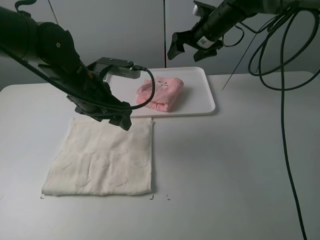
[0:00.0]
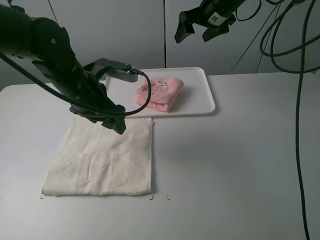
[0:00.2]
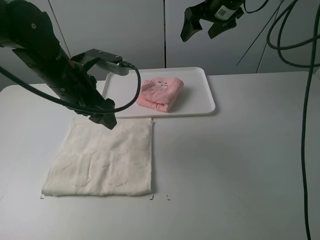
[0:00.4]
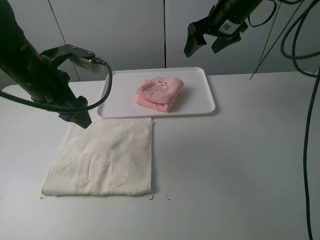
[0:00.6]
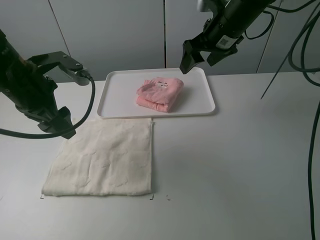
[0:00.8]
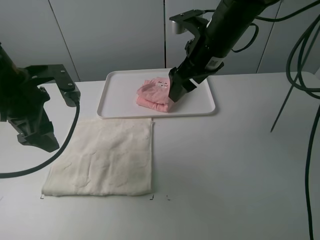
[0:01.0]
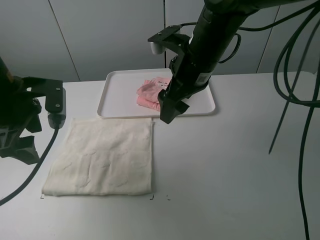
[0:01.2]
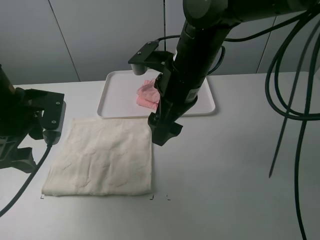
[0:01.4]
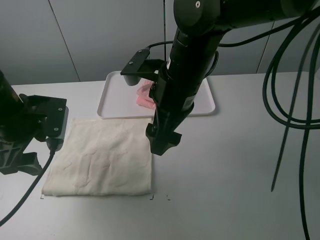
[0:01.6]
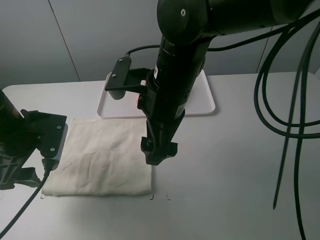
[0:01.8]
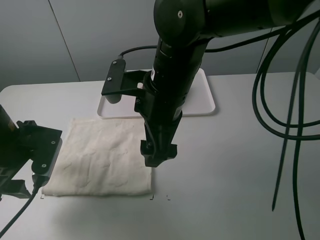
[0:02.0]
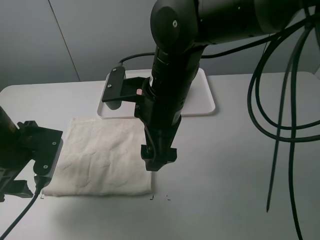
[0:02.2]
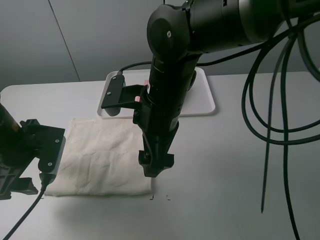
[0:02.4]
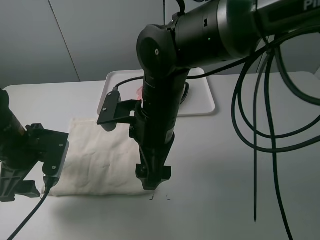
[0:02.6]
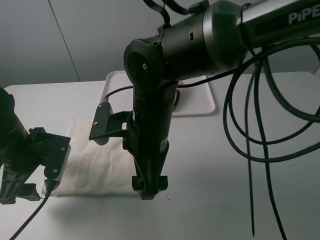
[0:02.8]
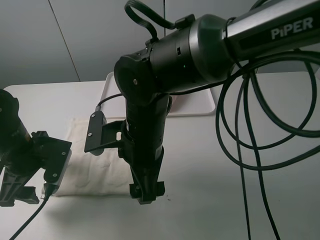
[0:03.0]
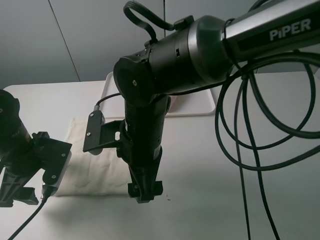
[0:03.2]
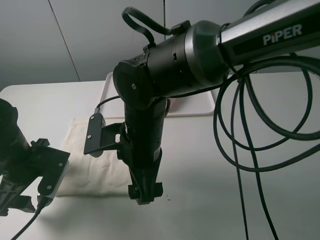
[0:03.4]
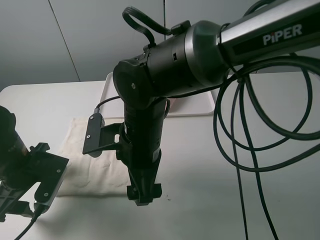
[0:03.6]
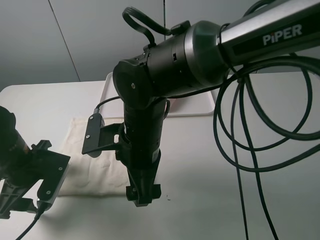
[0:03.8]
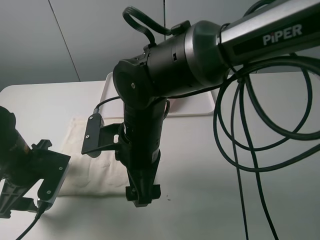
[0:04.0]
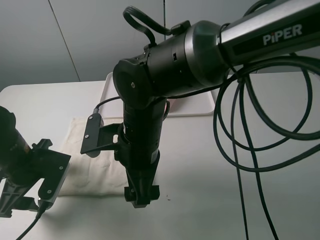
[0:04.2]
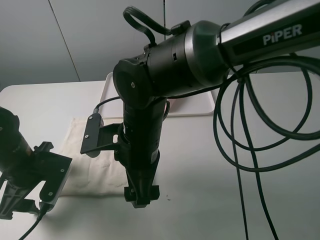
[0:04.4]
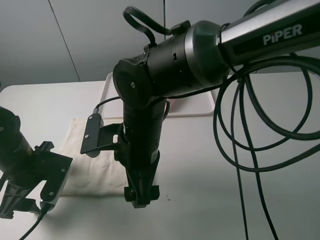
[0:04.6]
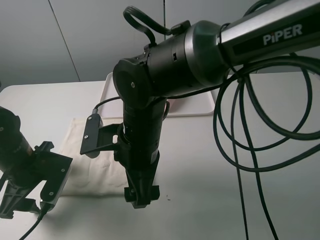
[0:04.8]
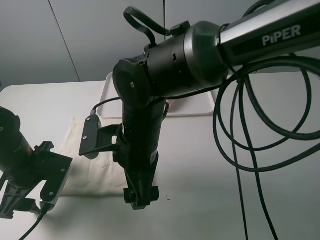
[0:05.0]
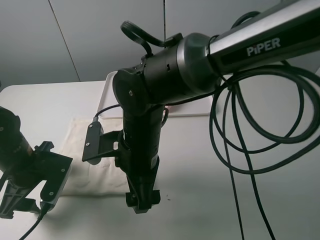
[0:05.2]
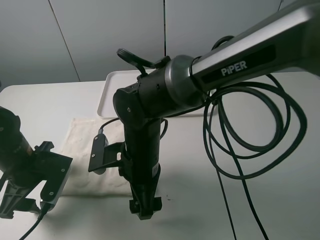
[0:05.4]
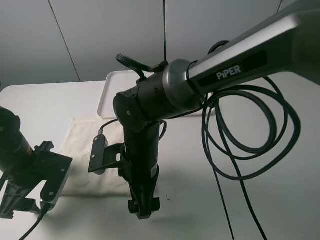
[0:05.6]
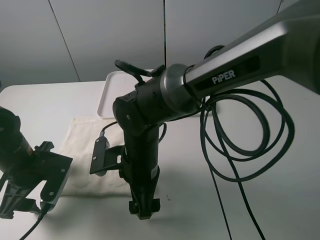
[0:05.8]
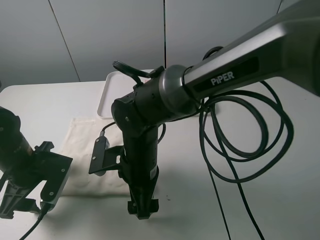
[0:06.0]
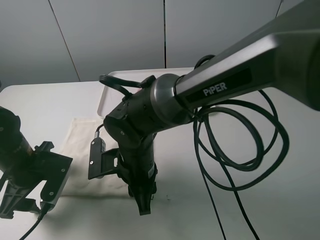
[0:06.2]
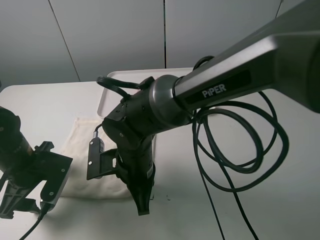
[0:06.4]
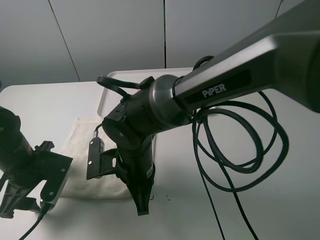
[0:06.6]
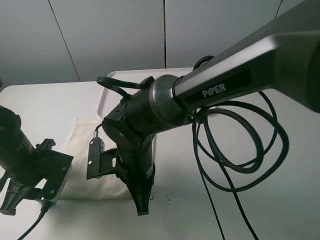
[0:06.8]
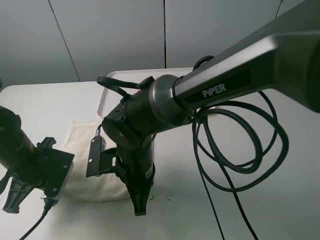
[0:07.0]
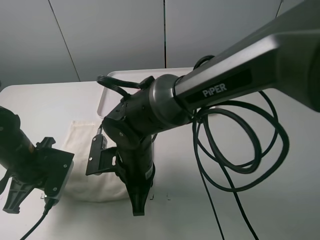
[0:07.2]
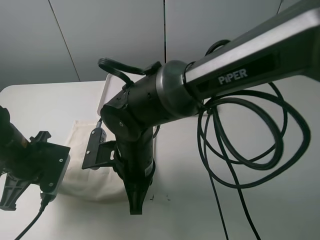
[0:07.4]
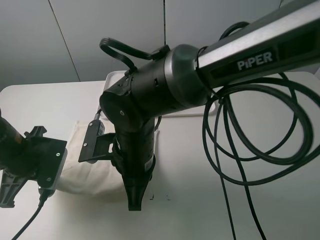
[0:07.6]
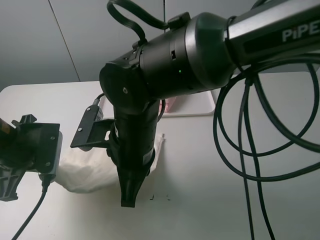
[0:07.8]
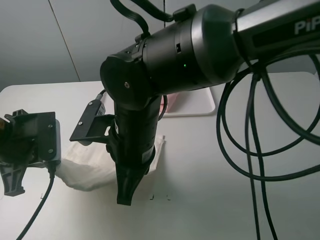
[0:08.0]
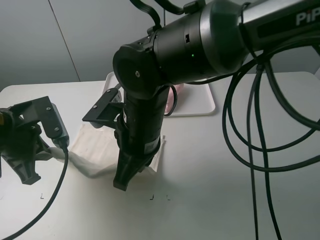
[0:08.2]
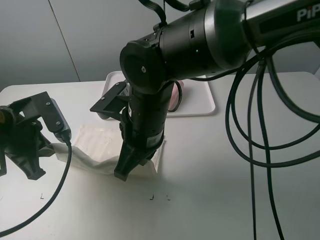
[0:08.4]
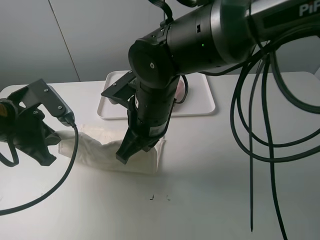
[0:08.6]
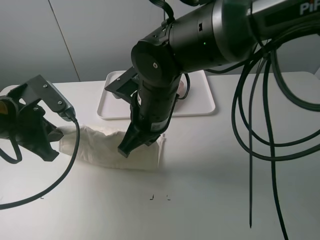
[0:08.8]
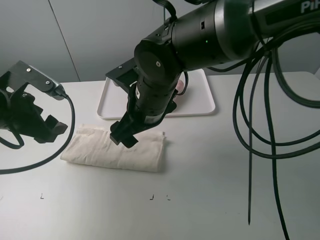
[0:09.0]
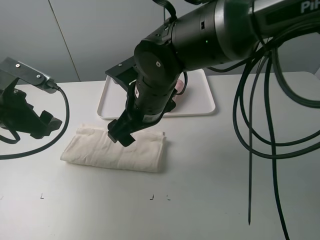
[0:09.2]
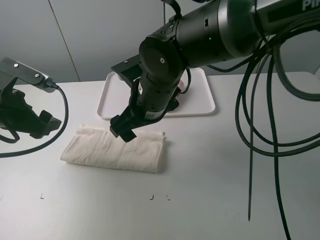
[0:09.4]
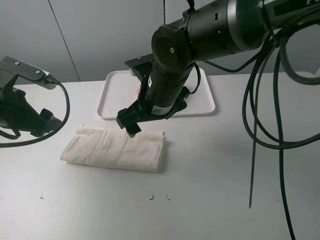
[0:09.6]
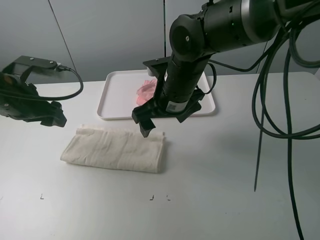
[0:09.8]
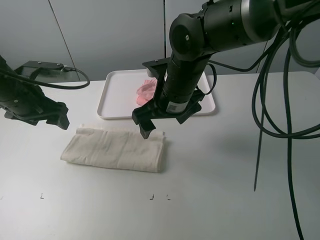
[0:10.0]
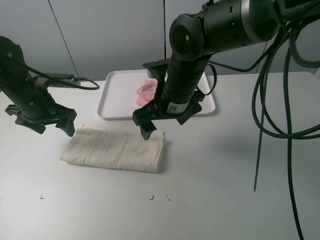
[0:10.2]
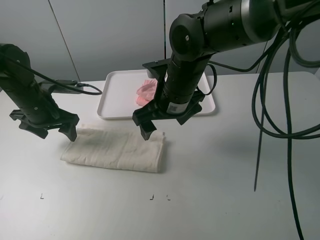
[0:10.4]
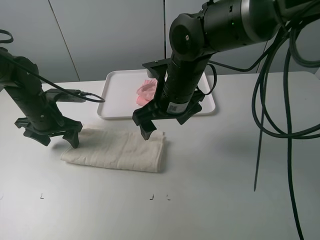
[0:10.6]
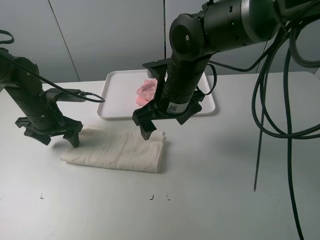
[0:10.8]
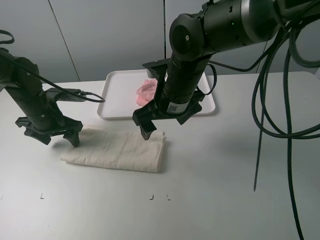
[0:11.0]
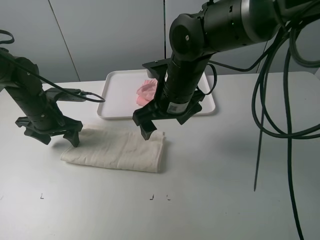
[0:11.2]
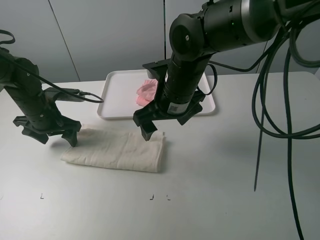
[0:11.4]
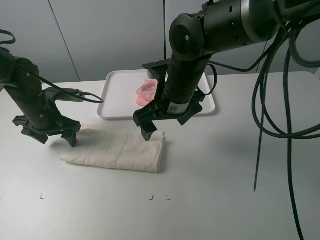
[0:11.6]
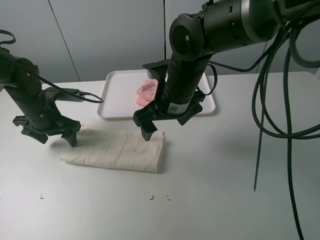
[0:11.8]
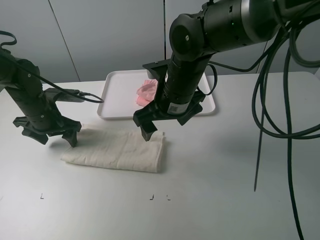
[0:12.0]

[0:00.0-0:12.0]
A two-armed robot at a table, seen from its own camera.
Task of the whole recording: fold one of the towels by two grippers and place it on the tray,then fold another towel by two grippers and place it on the folded towel.
Step, 0:00.0 to 0:06.8: Grasp the white towel with the left gripper.
Step, 0:07.0 to 0:09.2: Fold the white towel upwards with the left gripper.
0:00.0 to 0:01.6: The left gripper travels to the left and backward by some 15 cm. The right gripper travels backward and to the left by some 25 cm.
0:01.6 to 0:03.0: The right gripper heads downward and to the left, covering approximately 10 cm; the left gripper heads downward, covering about 5 cm.
0:04.4 to 0:06.0: The right gripper heads downward, covering roughly 5 cm.
0:06.0 to 0:07.6: The left gripper closes. Meanwhile the right gripper goes about 5 cm upward, and closes.
0:07.6 to 0:09.0: The right gripper heads forward, covering about 5 cm, and opens its fingers. Meanwhile the left gripper goes approximately 5 cm upward, and opens.
0:09.0 to 0:10.4: The left gripper goes roughly 10 cm forward and downward. The right gripper changes place by approximately 5 cm.
0:10.4 to 0:12.0: The grippers stay close to where they were, moving slightly.

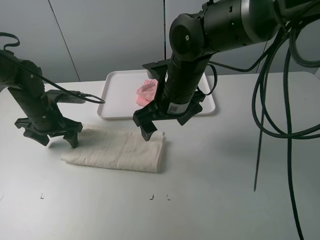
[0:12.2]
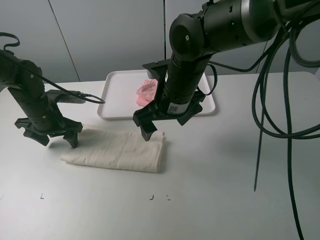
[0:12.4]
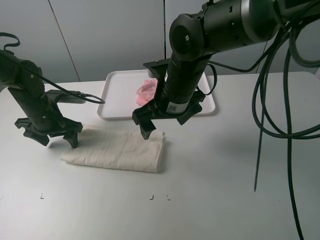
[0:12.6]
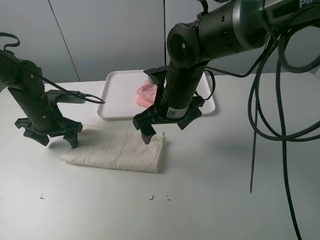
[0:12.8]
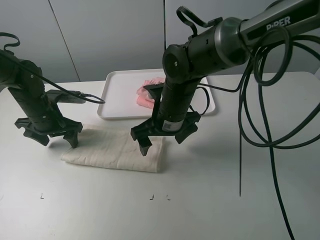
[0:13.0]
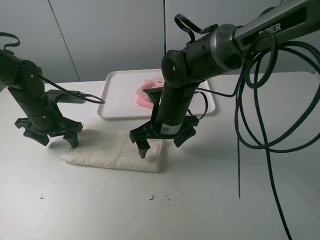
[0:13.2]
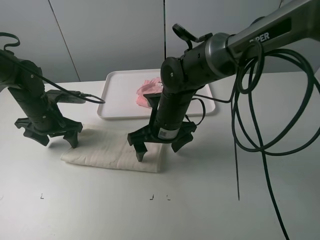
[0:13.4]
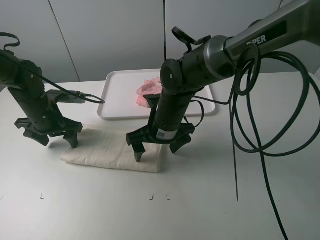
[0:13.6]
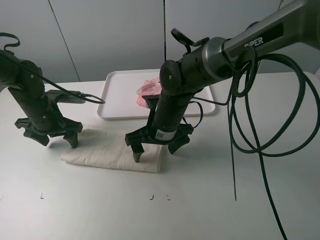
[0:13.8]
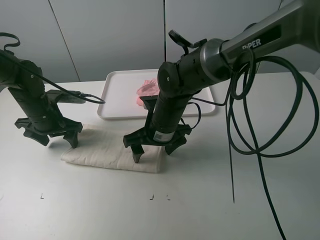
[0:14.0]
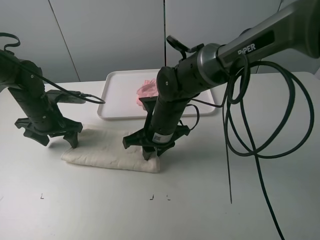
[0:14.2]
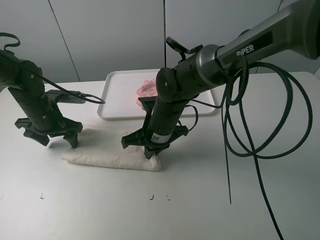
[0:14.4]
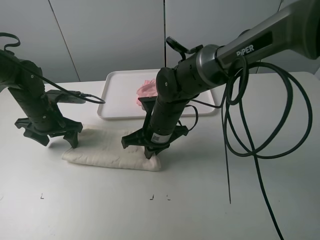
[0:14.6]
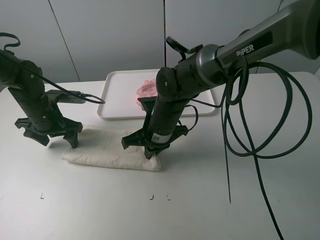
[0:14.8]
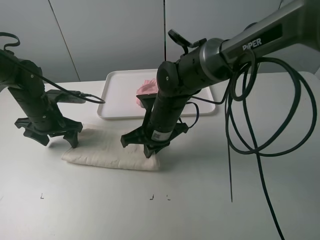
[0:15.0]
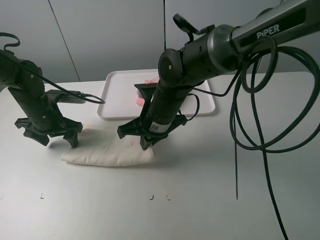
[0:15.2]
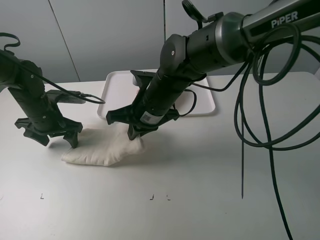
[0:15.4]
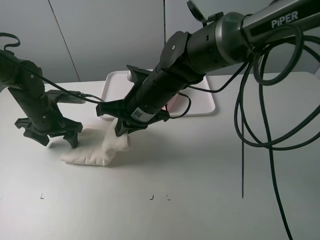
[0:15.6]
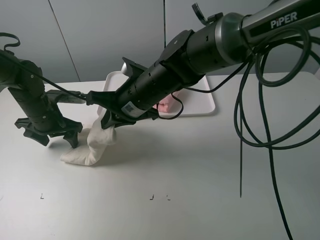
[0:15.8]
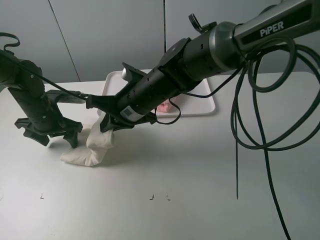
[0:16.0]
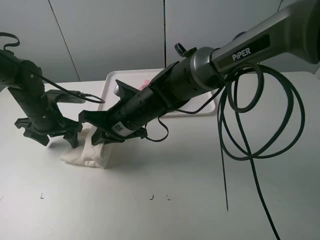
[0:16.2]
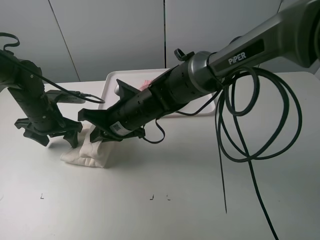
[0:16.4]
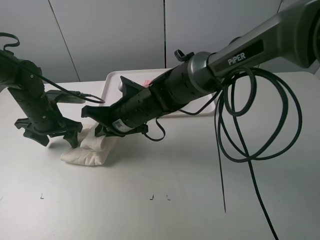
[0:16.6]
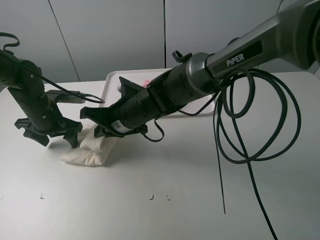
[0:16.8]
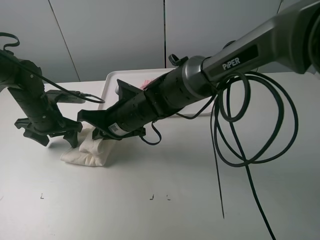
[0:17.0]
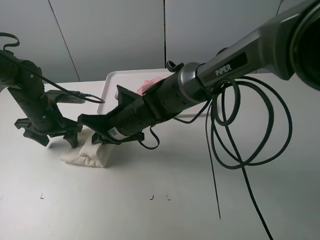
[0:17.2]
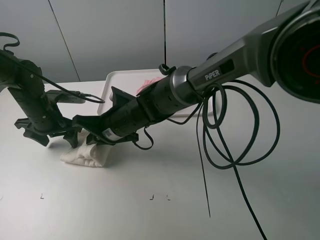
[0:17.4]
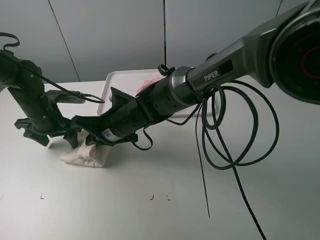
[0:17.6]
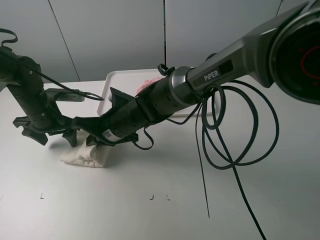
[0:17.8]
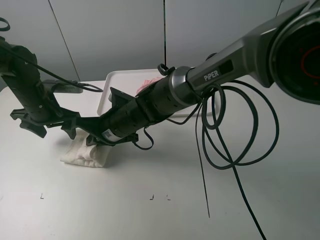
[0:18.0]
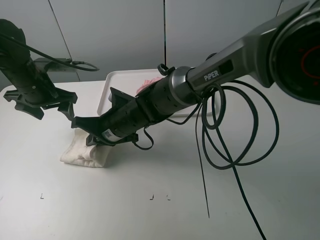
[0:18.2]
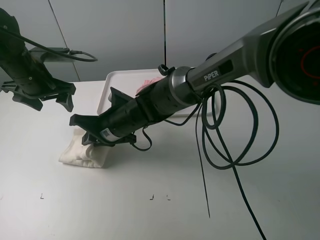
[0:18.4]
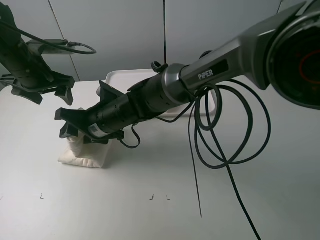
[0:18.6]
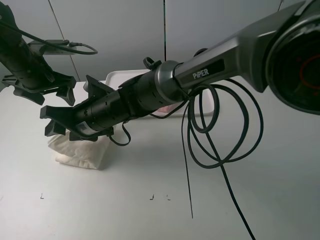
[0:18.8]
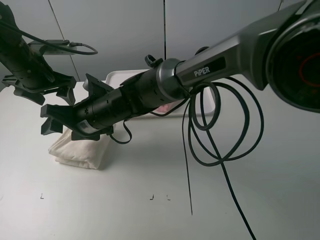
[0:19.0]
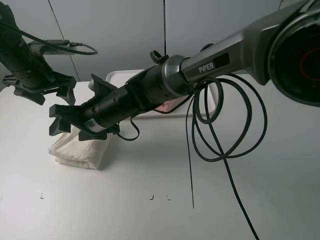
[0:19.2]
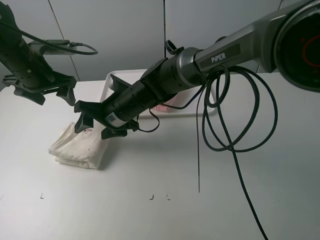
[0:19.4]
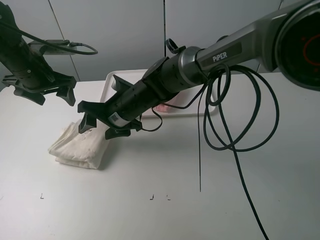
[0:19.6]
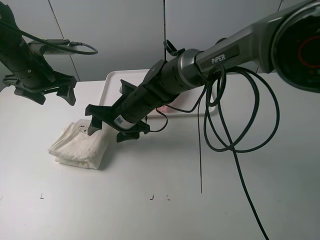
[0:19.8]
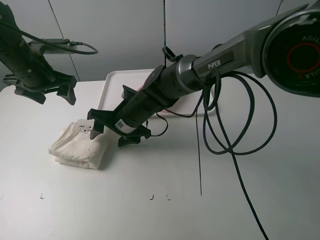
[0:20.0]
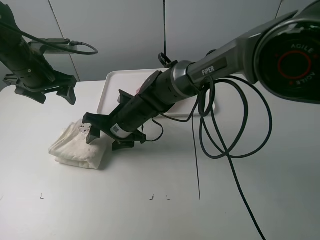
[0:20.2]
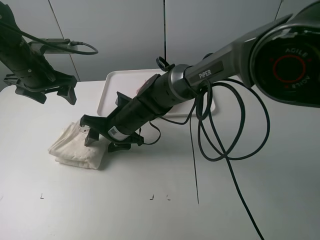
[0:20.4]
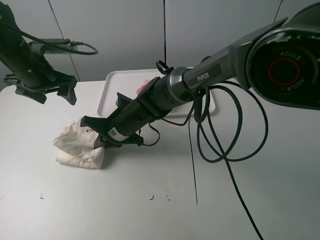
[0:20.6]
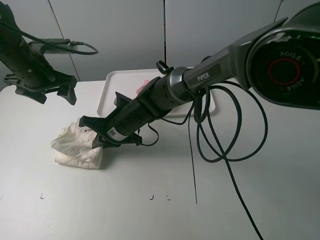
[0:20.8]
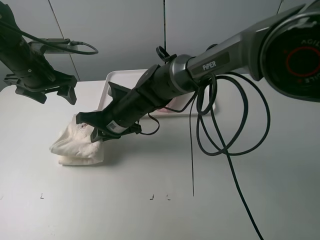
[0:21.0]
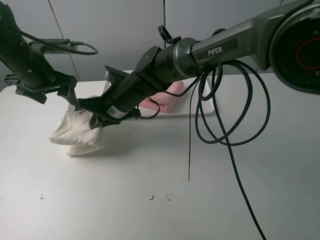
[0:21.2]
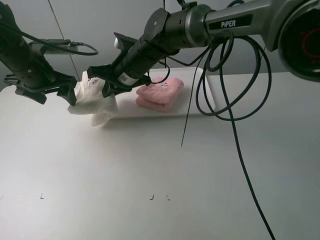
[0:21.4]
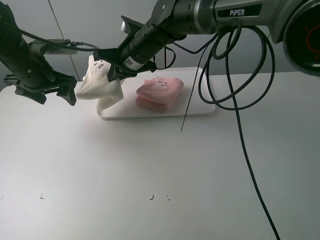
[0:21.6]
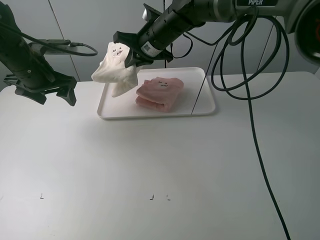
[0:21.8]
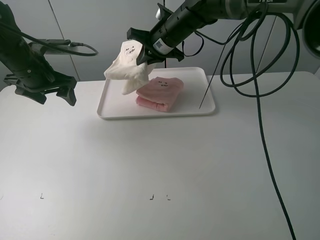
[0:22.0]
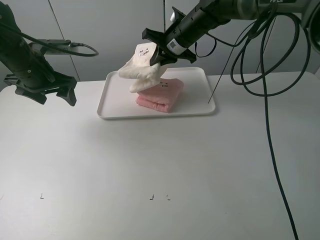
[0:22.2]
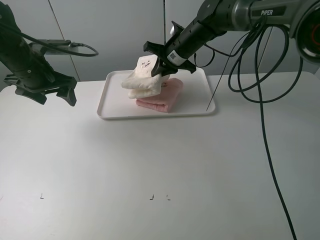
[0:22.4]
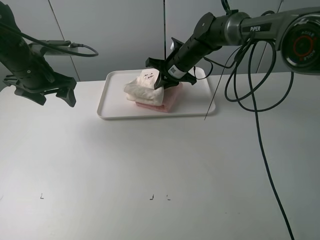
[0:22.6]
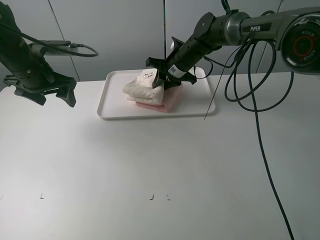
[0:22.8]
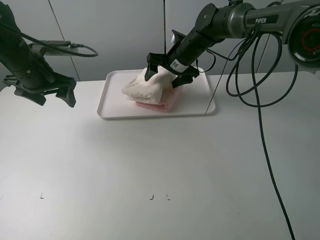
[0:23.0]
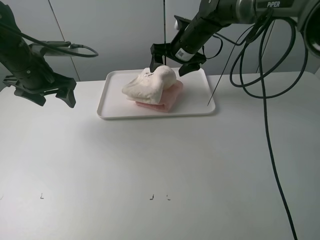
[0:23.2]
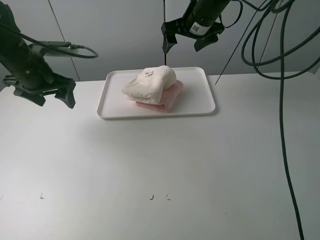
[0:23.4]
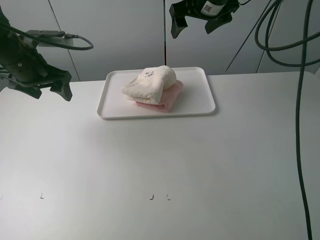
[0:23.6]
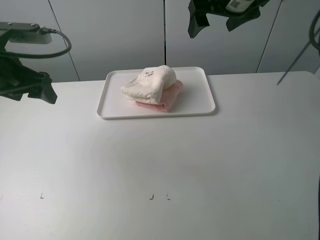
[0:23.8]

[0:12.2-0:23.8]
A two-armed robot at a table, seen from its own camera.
Task of the whole recording: fold one of the towels by two grippers and place it on the tray,then fold another towel by two grippers and place it on the folded towel.
Step, 0:12.6 to 0:14.4: Grasp the white towel with the right gripper.
Step, 0:14.6 to 0:19.0: Fold the white towel from right to left with right gripper.
Step, 0:19.2 to 0:20.8: Grasp the white towel with the right gripper.
Step, 0:21.0 to 0:23.2: Place the white towel on the pink towel with the right gripper.
0:12.2 to 0:13.6: The right gripper goes some 10 cm downward.
0:13.6 to 0:15.0: The right gripper closes up.
0:15.0 to 0:16.6: The right gripper is displaced to the left by roughly 5 cm.
0:18.0 to 0:19.4: The right gripper opens its fingers; the left gripper moves upward, about 5 cm.
0:19.4 to 0:21.0: The right gripper closes.
0:21.0 to 0:22.4: The right gripper shifts some 20 cm forward and to the right.
0:22.4 to 0:23.8: The right gripper travels upward, backward and to the right by roughly 20 cm, and opens its fingers; the left gripper goes approximately 10 cm backward.
